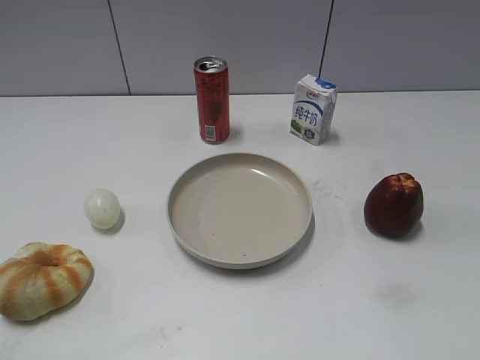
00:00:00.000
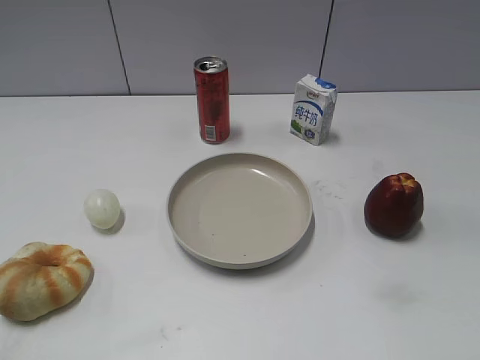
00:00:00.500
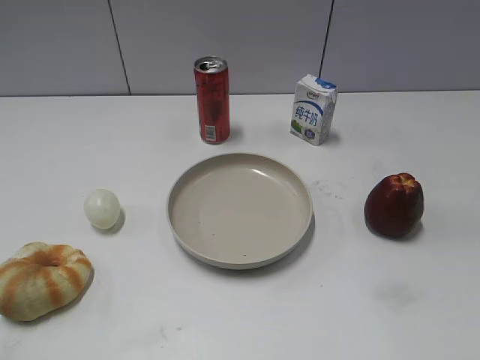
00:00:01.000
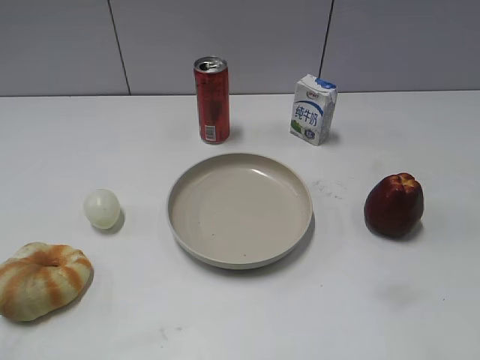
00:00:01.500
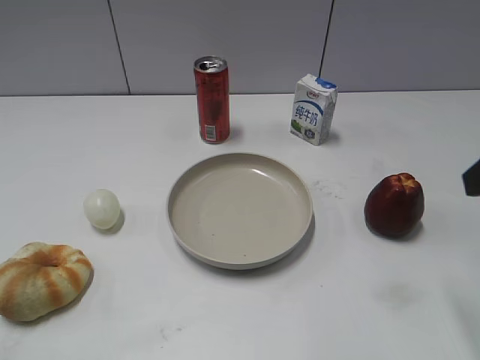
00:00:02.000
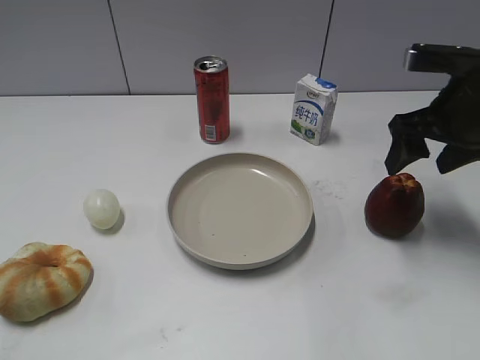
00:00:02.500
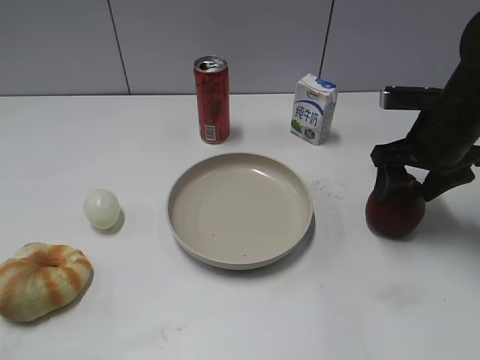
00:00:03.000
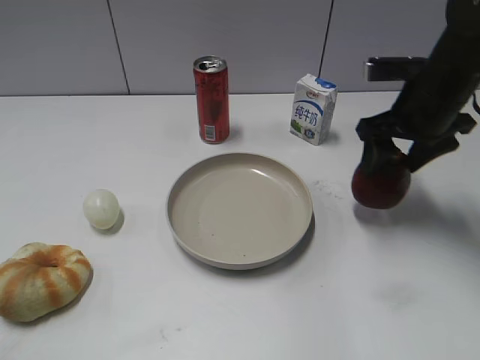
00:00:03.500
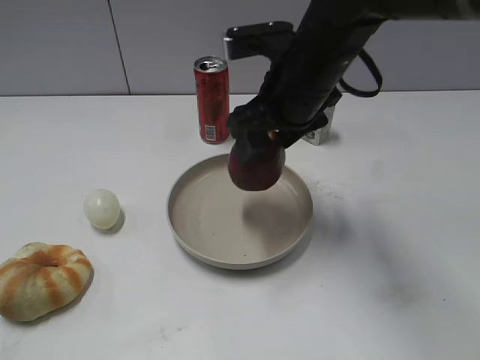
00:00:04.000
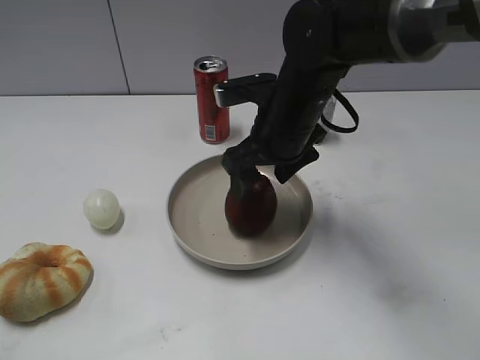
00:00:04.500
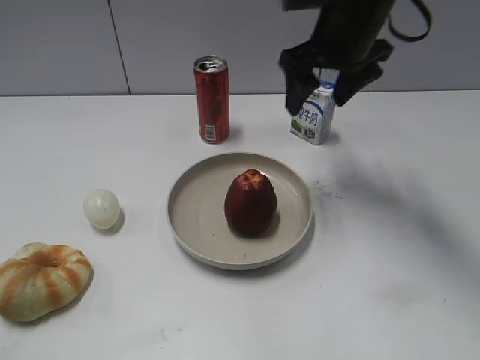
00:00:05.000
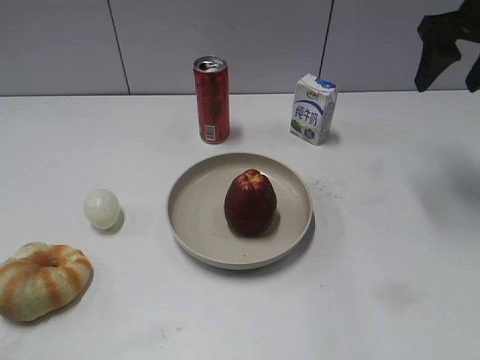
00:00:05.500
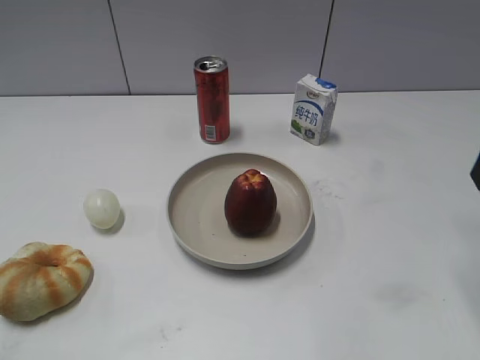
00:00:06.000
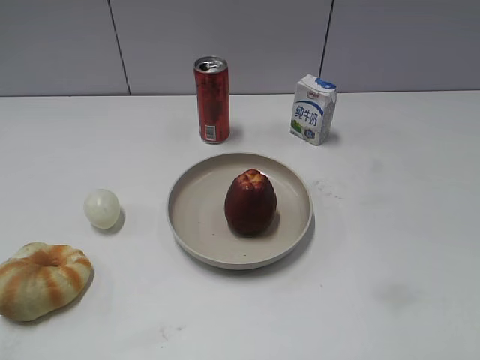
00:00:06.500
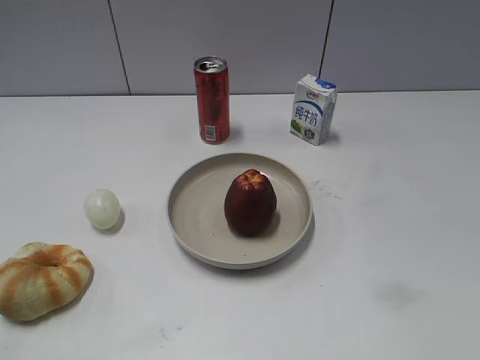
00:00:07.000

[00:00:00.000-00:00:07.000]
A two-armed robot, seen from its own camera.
Step, 00:00:02.000 to 00:00:03.000: Grasp the apple with right gripper.
Step, 00:00:03.500 to 00:00:04.500: Place the apple on the plate with right gripper.
00:00:02.000 to 00:00:03.500: The right gripper shifts roughly 20 cm forward and downward, and closes its fingers.
00:00:03.500 to 00:00:05.000: The right gripper shifts approximately 10 cm to the left and upward, and opens up.
00:00:05.000 to 00:00:07.000: The right gripper heads backward and to the right, covering some 40 cm, and closes.
